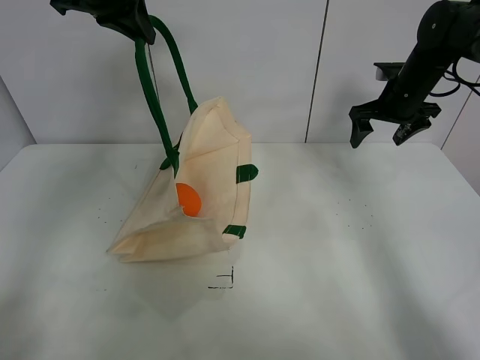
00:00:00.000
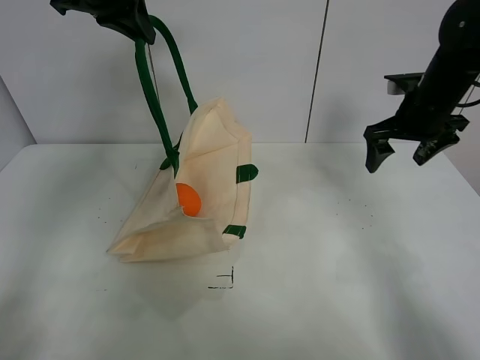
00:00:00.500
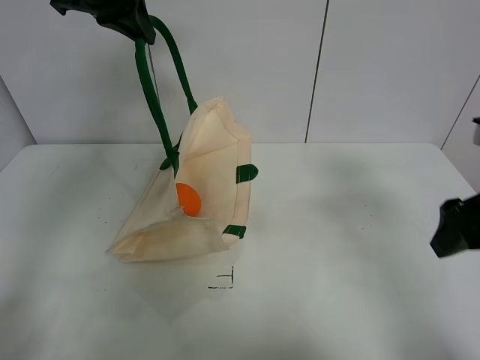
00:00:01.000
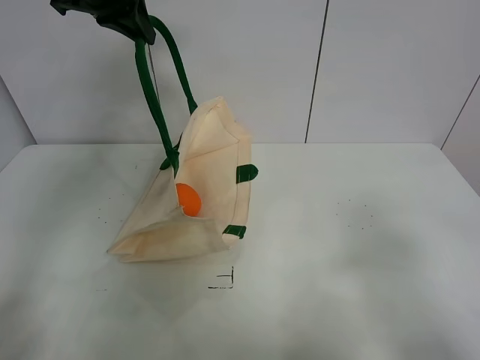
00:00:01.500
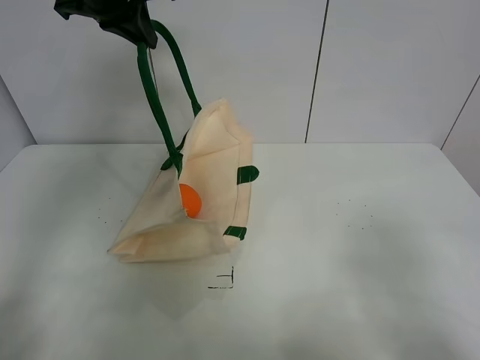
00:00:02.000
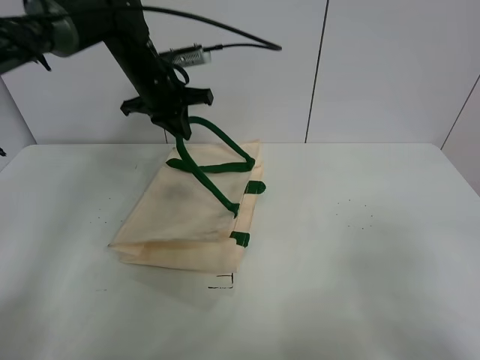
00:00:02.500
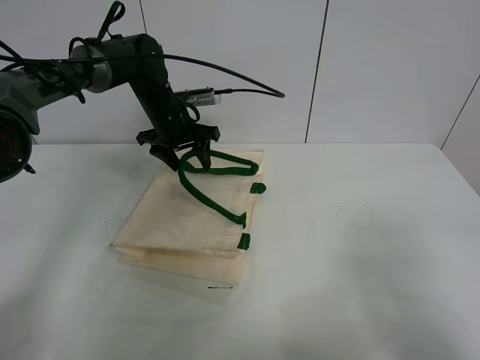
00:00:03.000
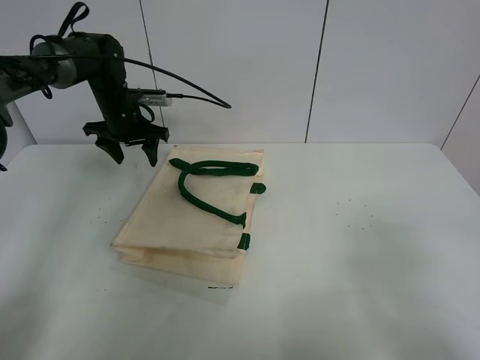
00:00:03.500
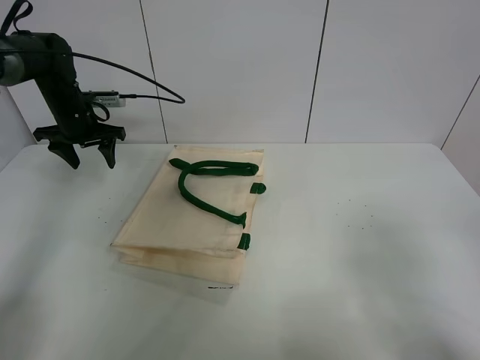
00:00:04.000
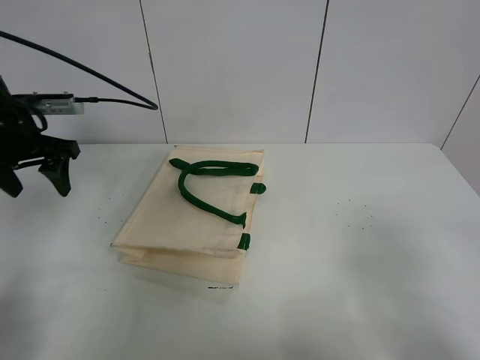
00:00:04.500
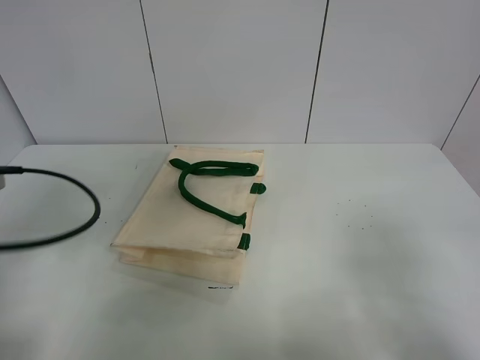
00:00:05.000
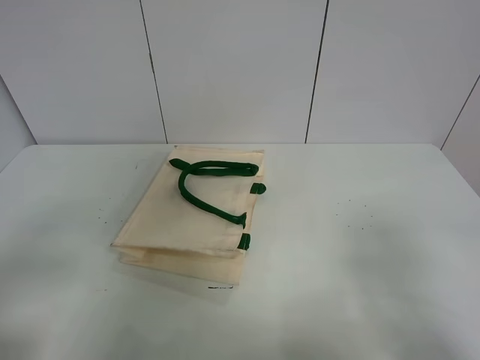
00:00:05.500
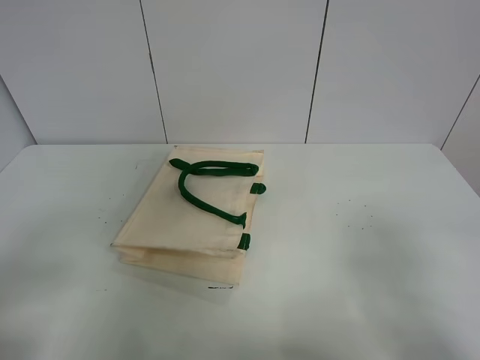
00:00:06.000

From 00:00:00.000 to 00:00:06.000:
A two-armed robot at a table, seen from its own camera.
Task of the whole recording: open the white linen bag and put the orange in the bag.
Step, from 00:00:00.000 to 00:00:03.000: Put down the handbag with left gripper.
From 00:00:00.000 to 00:00:02.000: The right gripper heads backward, covering approximately 50 cm.
From 00:00:02.000 to 00:00:04.000: The left gripper travels downward and to the left by approximately 25 cm, and opens its fingers.
From 00:00:04.000 to 00:00:06.000: The left gripper shifts approximately 50 cm backward.

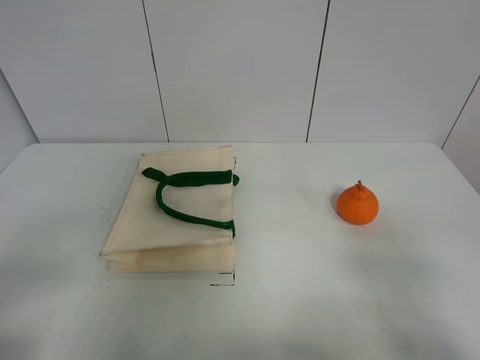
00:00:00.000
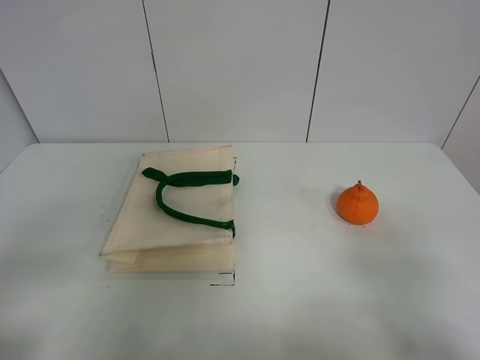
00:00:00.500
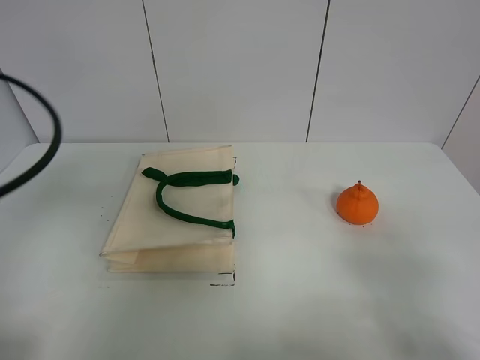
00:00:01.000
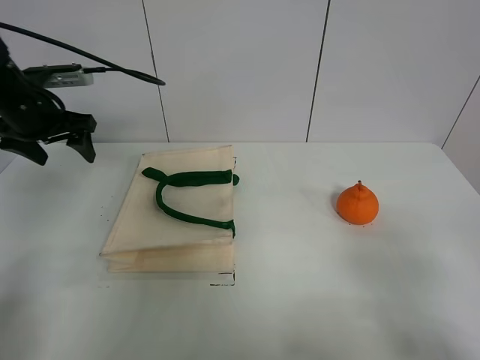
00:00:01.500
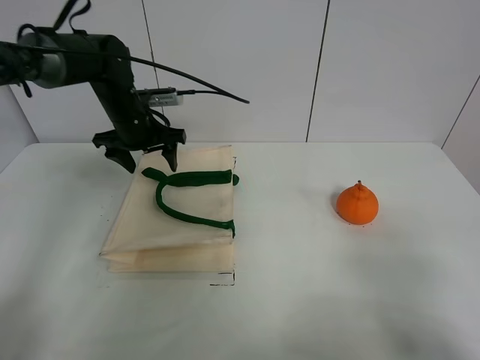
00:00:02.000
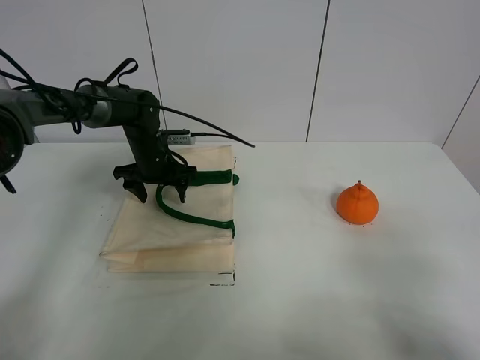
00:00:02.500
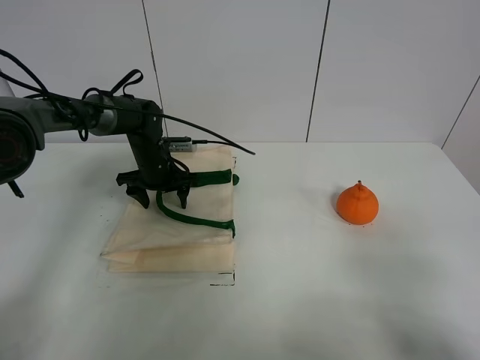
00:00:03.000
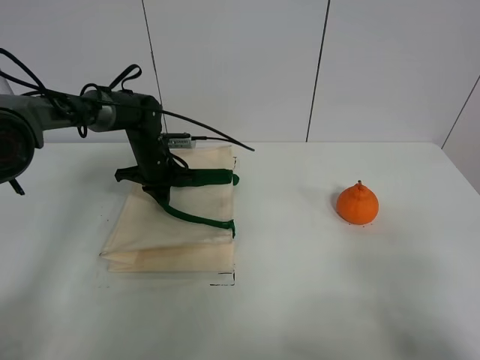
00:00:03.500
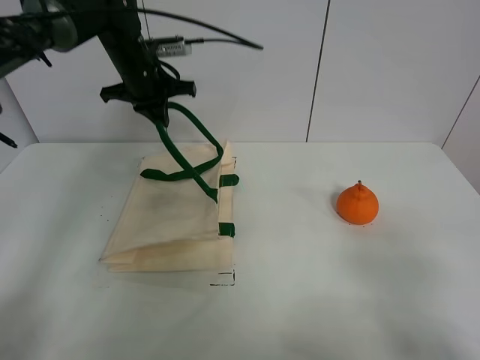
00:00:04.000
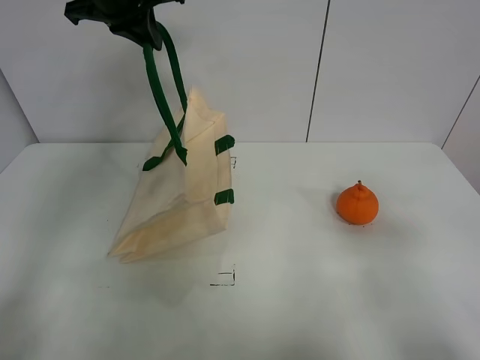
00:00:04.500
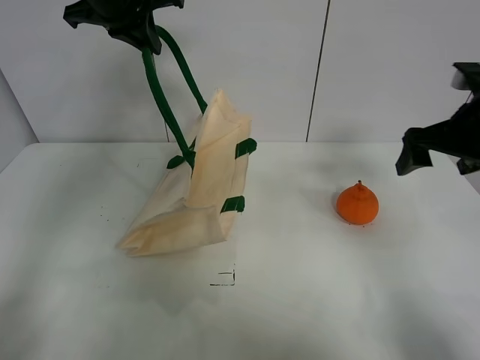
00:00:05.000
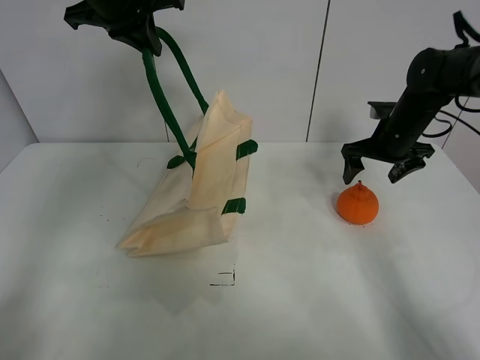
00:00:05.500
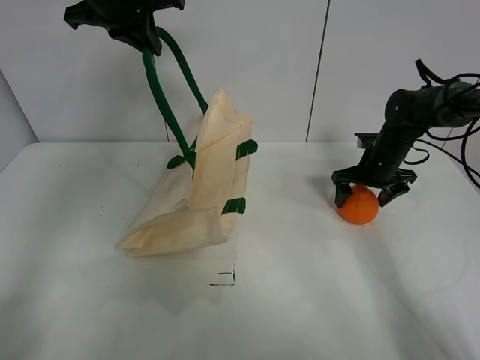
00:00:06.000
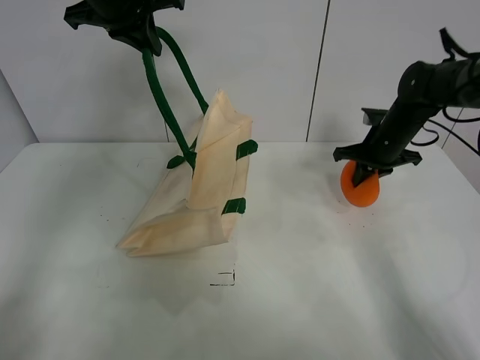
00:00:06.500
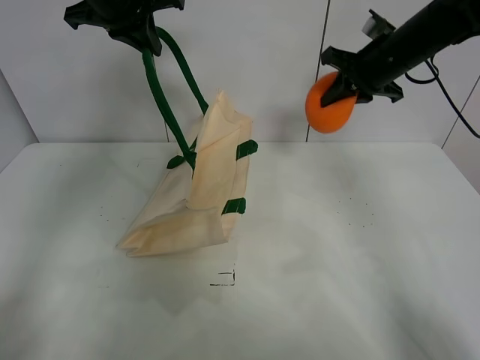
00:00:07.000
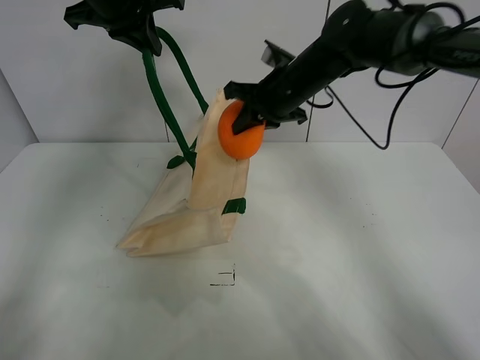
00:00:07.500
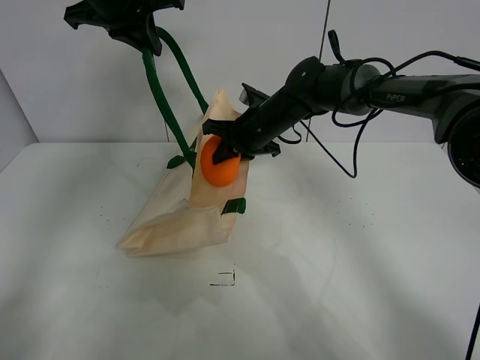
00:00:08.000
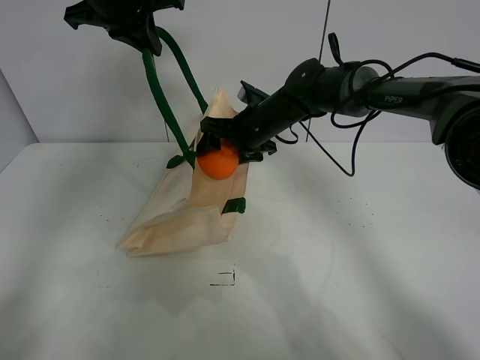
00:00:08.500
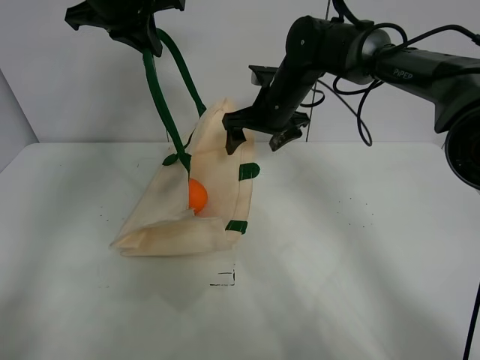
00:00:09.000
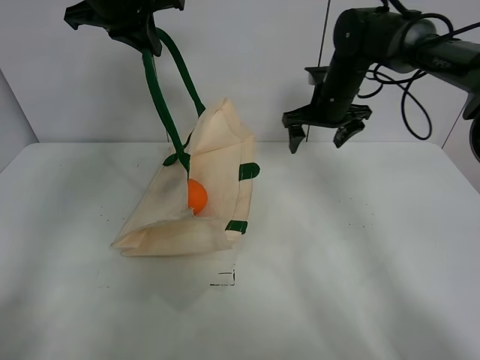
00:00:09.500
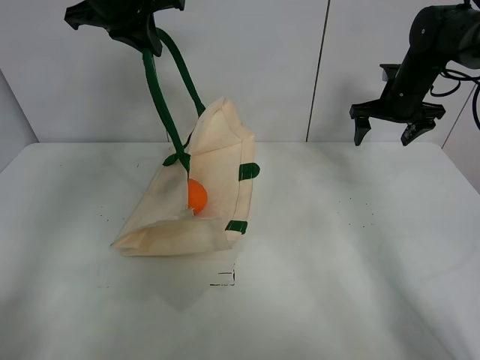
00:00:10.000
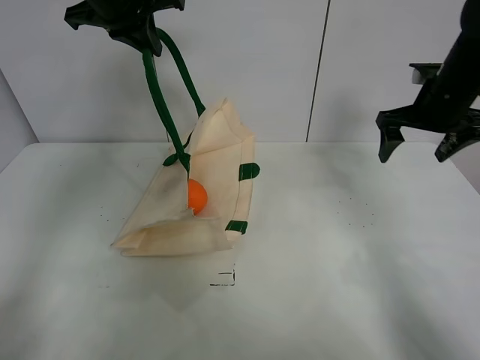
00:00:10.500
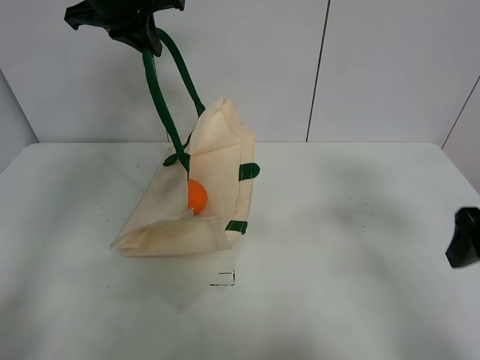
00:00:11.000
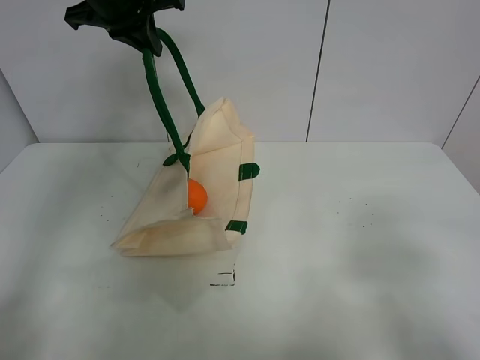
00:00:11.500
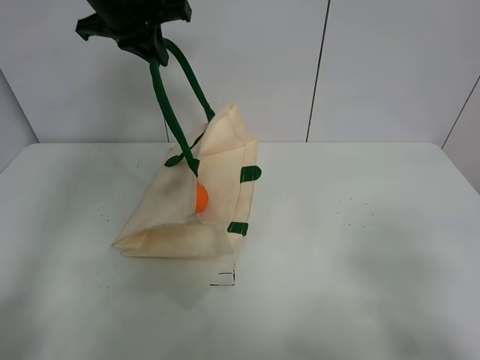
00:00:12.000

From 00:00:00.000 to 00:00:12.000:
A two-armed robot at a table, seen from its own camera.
Task of the whole recording: open the white linen bag and put the orange in the bag.
Step, from 00:00:00.000 to 00:00:04.000: Lift the handbag with left gripper.
Step, from 00:00:04.500 to 00:00:06.000: Grasp the orange with right gripper.
Step, from 00:00:06.500 to 00:00:08.500: Place the orange in the handbag with right gripper.
From 00:00:00.000 to 00:00:02.000: The left gripper shifts about 40 cm forward.
From 00:00:02.000 to 00:00:04.000: The left gripper is displaced upward by roughly 10 cm, and closes its fingers.
From 00:00:04.000 to 00:00:06.000: The left gripper shifts some 15 cm upward and backward; the right gripper shifts approximately 40 cm forward.
From 00:00:06.000 to 00:00:08.000: The right gripper shifts some 20 cm to the left, and closes up.
From 00:00:08.000 to 00:00:10.000: The right gripper is displaced to the right by some 25 cm, and opens its fingers.
From 00:00:10.000 to 00:00:12.000: The right gripper shifts roughly 50 cm backward.

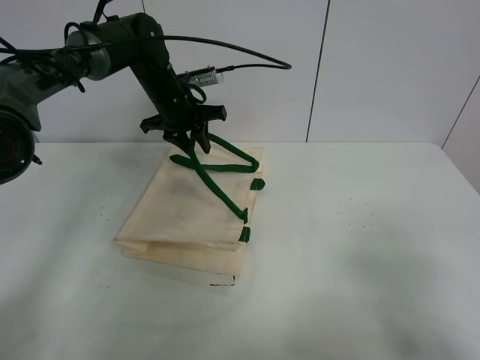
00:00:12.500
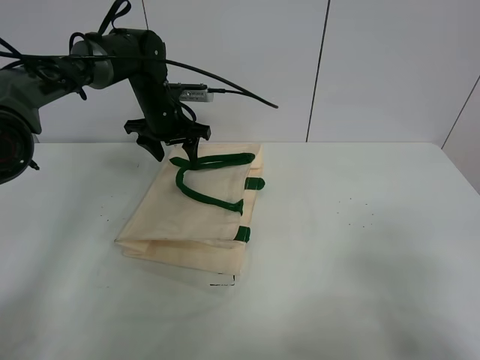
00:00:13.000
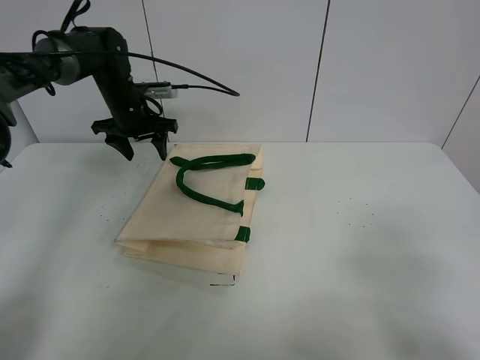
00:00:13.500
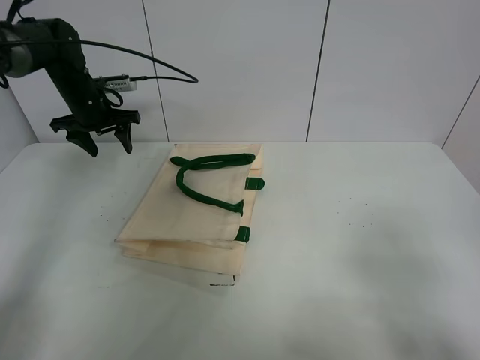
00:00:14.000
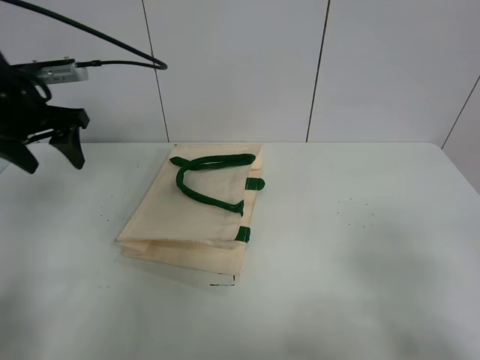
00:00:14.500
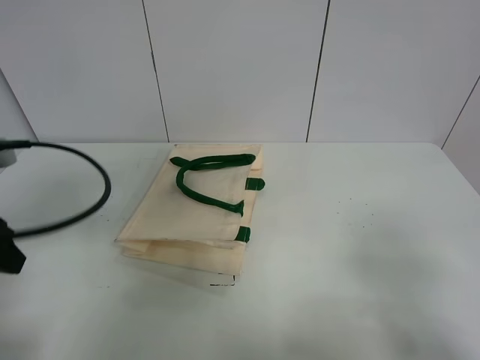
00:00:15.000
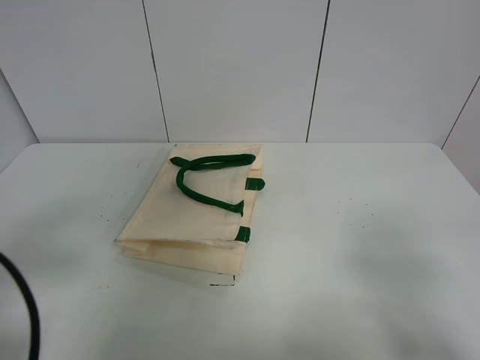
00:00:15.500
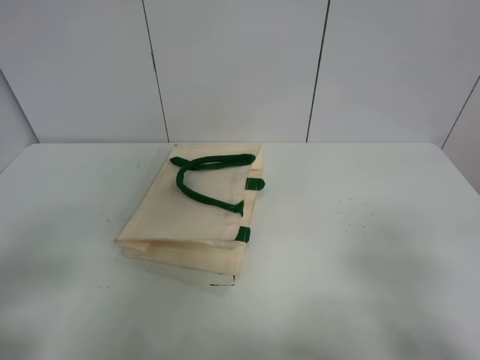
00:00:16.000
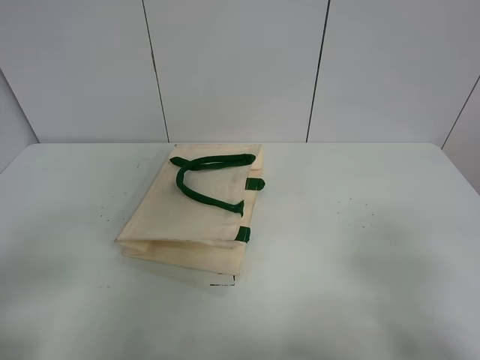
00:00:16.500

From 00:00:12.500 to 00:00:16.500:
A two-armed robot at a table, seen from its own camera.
Task of the whole recording: open the white linen bag and put the orange in the bag.
From 00:00:12.500 to 00:00:14.500: The left gripper heads to the left, backward and upward, covering about 25 cm.
From 00:00:14.500 to 00:00:16.500: The left gripper is displaced backward by some 30 cm.

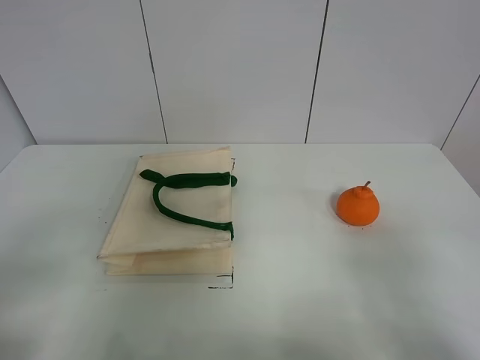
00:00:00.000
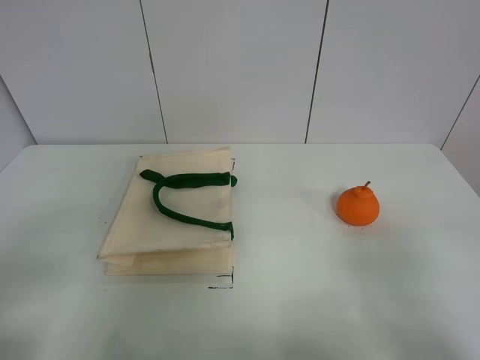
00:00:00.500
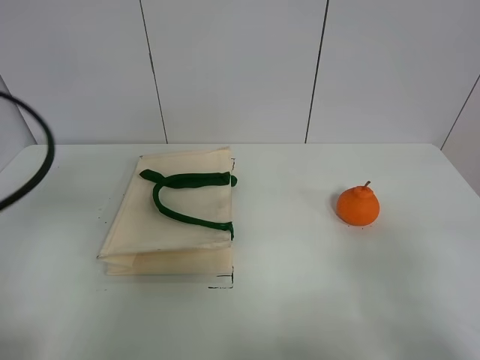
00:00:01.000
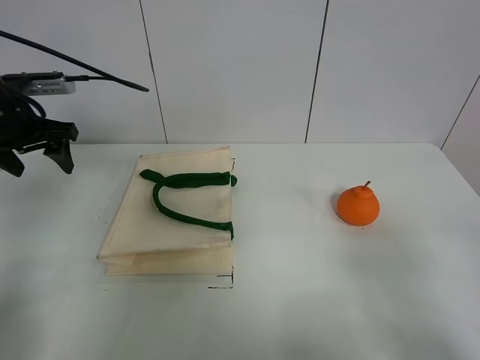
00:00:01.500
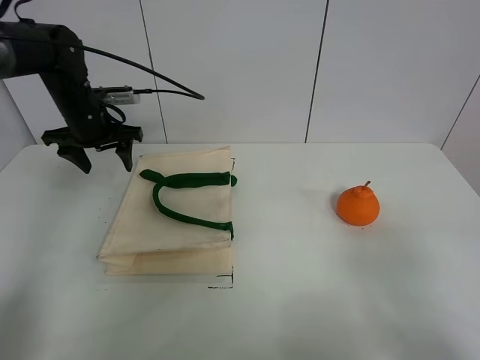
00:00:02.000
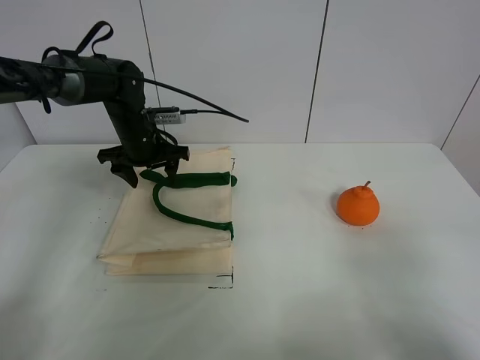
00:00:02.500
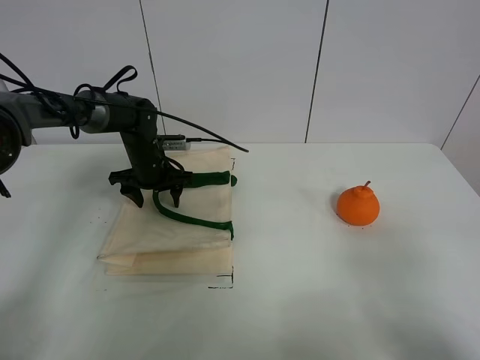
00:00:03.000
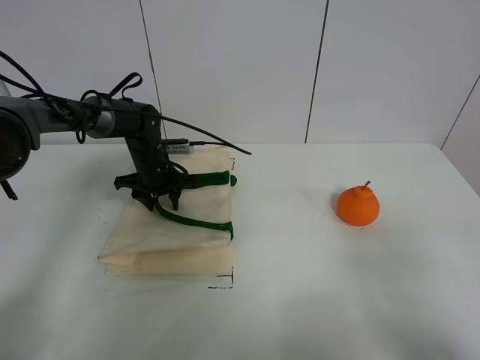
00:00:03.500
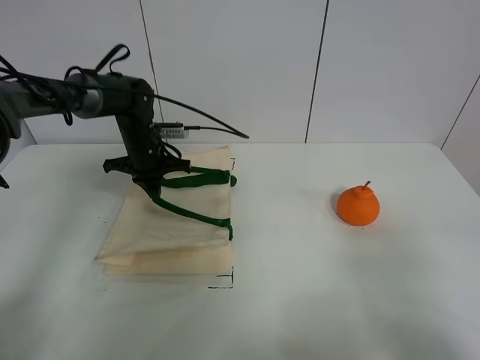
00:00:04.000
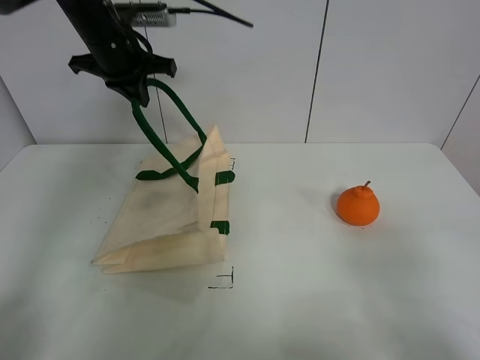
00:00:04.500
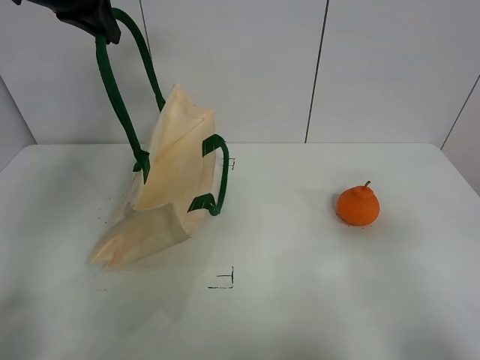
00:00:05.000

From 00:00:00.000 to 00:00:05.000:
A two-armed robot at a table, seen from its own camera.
Task of the whole recording: open the white linen bag and put the orange in the bag.
Step, from 00:00:00.000 to 00:00:04.500: Lift the handbag with left gripper.
From 00:00:00.000 to 00:00:02.500: The left gripper shifts some 40 cm forward.
From 00:00:02.500 to 00:00:05.000: The right gripper travels forward by about 5 cm; the left gripper heads upward, covering roughly 25 cm, and closes its fingers.
